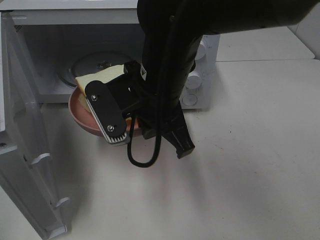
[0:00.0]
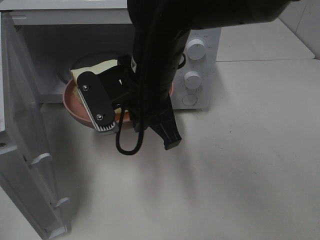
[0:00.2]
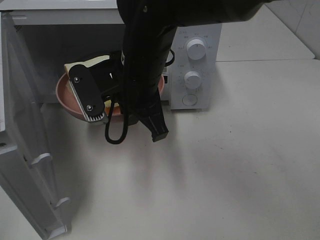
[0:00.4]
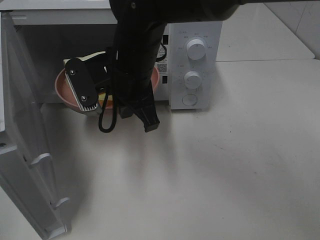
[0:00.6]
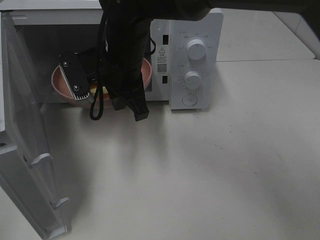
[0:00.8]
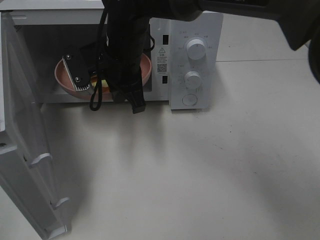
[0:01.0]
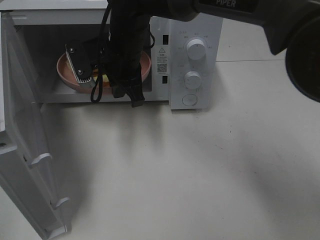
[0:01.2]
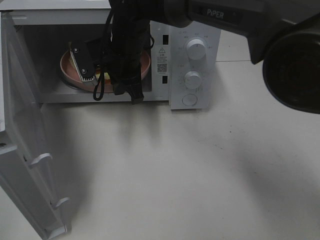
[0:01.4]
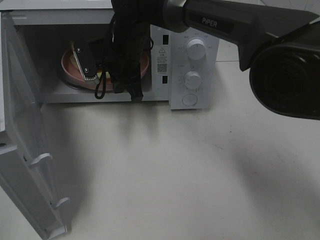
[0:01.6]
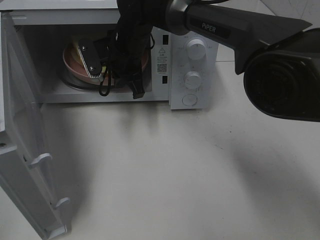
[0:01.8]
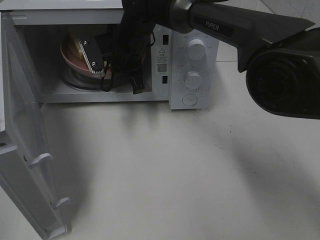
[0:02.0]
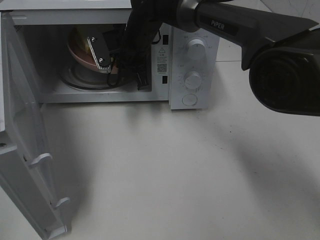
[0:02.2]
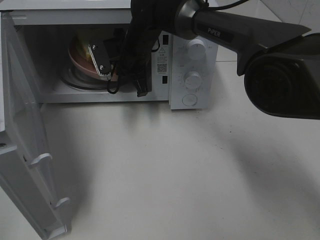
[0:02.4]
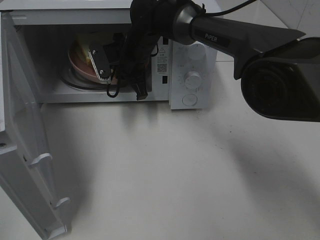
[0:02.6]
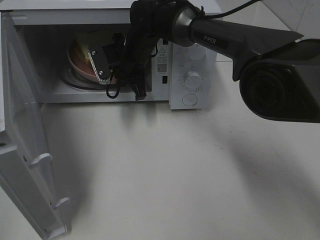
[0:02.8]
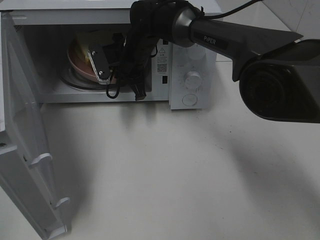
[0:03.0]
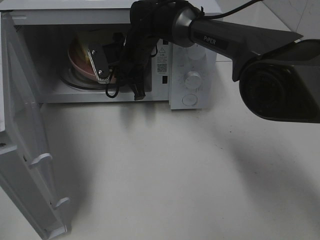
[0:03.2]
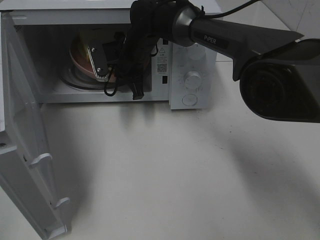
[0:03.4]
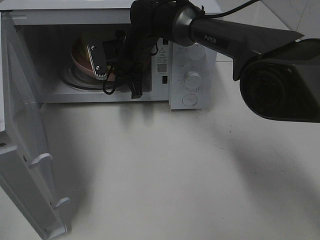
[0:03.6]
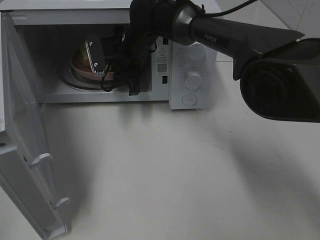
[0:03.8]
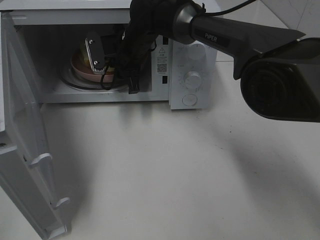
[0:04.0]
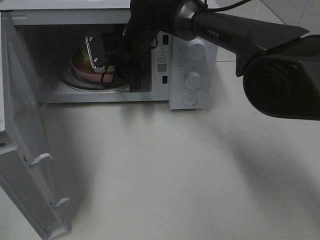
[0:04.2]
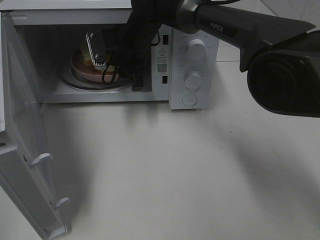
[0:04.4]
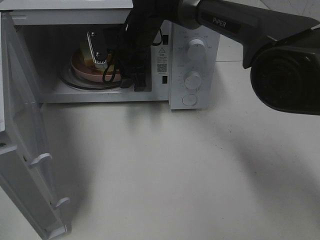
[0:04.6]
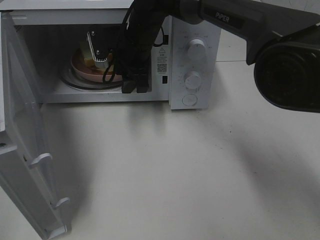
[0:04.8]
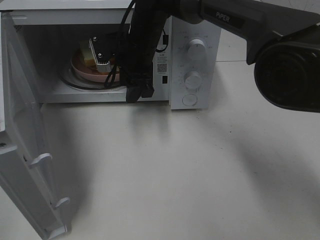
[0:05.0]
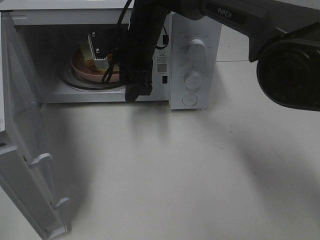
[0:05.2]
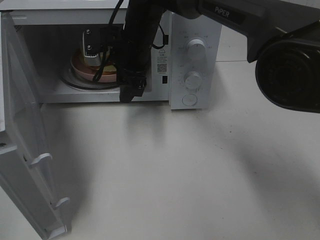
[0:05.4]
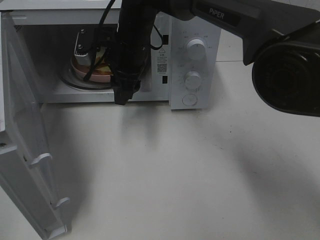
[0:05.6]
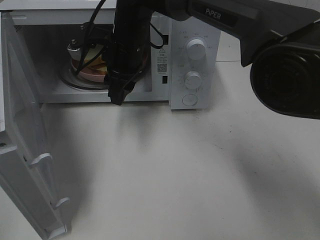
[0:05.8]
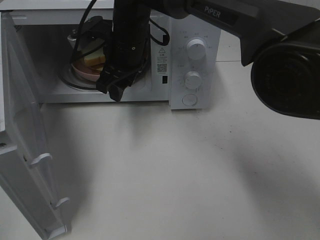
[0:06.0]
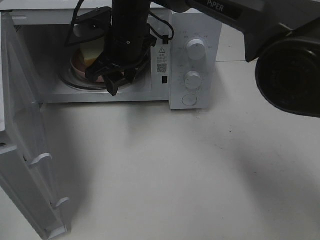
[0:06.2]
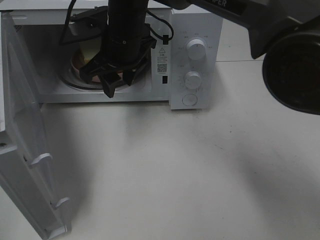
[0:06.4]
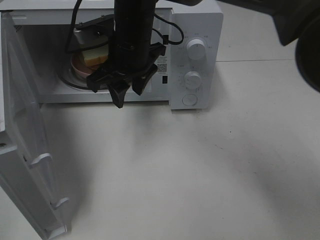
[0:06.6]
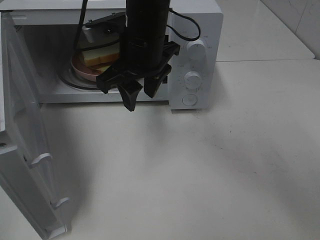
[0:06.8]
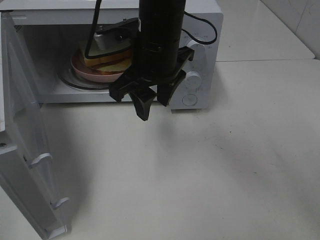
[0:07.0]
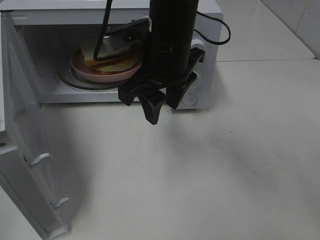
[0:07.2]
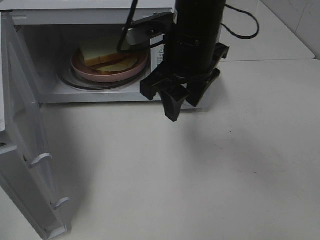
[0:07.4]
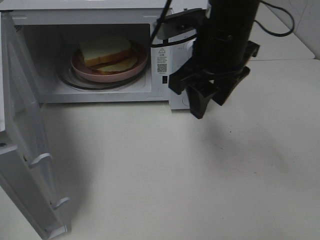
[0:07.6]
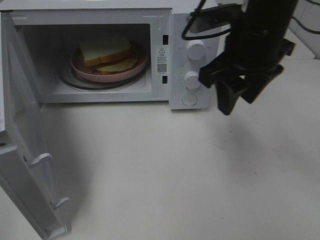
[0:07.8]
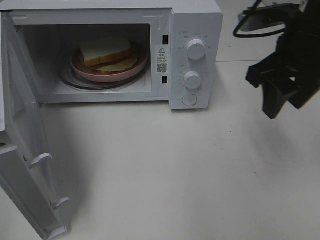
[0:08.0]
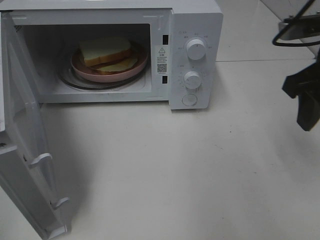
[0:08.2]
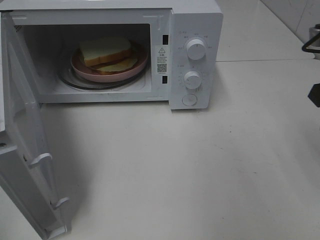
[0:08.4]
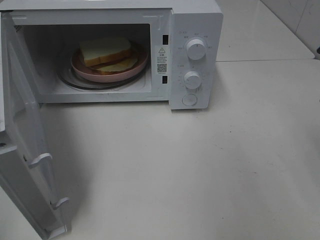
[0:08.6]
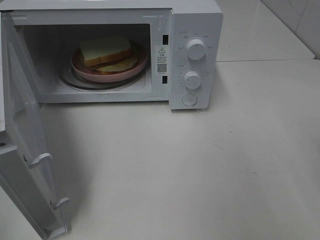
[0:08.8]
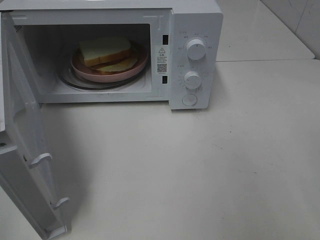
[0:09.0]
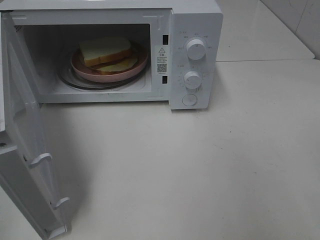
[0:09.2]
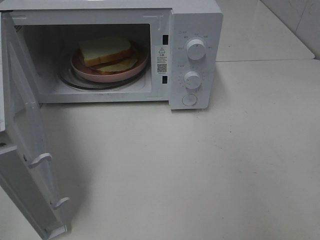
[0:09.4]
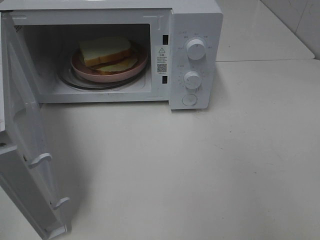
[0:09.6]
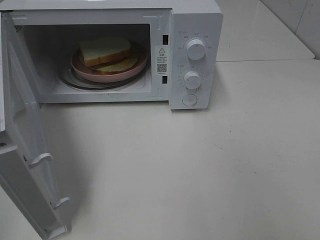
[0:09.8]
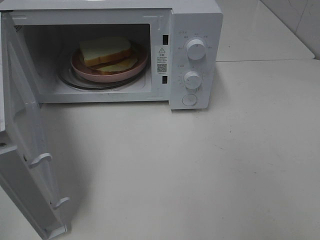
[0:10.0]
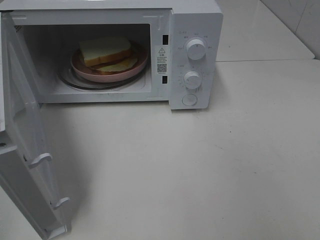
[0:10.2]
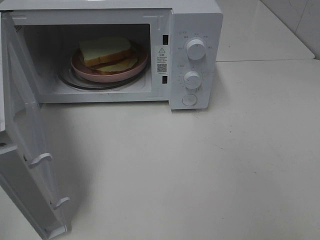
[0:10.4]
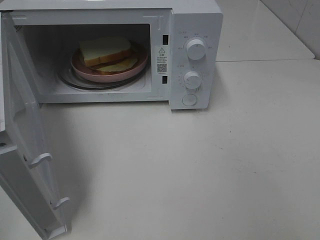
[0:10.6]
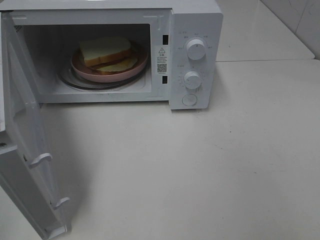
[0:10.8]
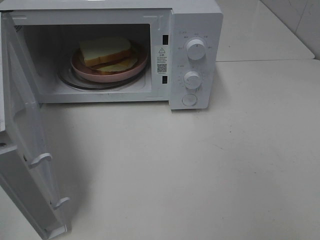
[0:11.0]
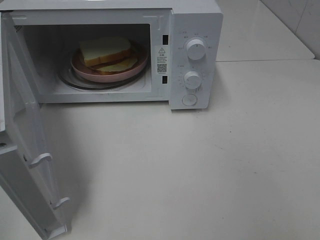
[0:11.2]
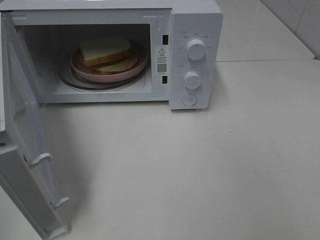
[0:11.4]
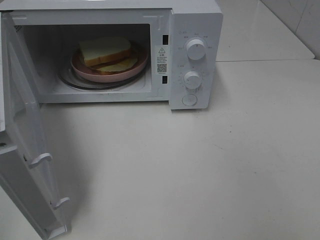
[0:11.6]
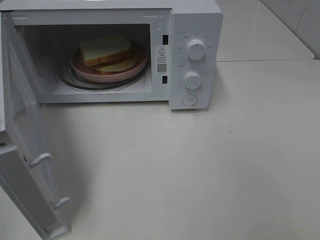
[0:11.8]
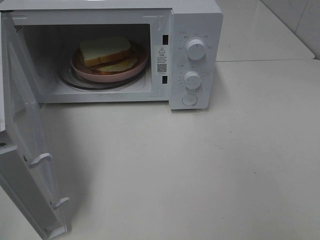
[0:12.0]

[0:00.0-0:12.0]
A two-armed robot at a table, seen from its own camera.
Task of the whole recording: Heat Sandwich.
Step, 0:00.0 to 0:04.6: Right hand: place the plate in the microwave.
0:00.0 to 0:01.6: The right gripper goes some 15 cm forward.
0:01.6 to 0:03.0: The right gripper ends up some 5 cm from where it was.
0:03.0 to 0:04.4: The right gripper opens its fingers.
0:04.4 to 0:06.0: The right gripper heads backward, covering about 5 cm.
0:06.0 to 0:07.6: The right gripper shifts about 20 cm to the right, backward and upward.
0:07.6 to 0:09.0: The right gripper moves to the right and backward, approximately 25 cm.

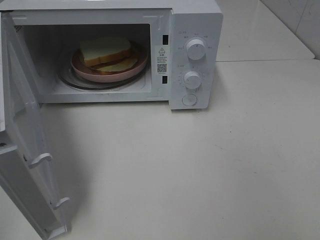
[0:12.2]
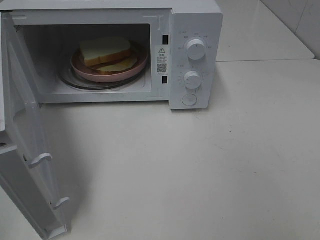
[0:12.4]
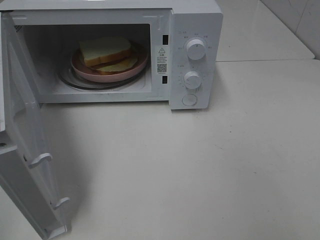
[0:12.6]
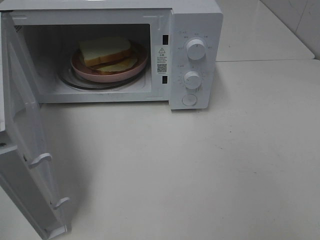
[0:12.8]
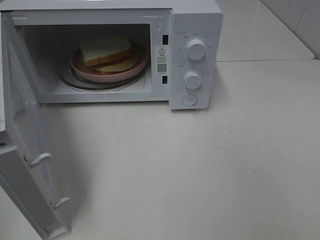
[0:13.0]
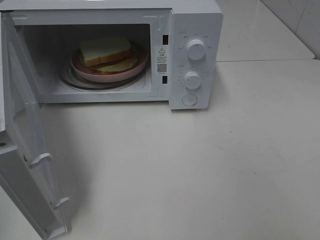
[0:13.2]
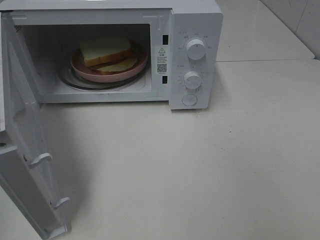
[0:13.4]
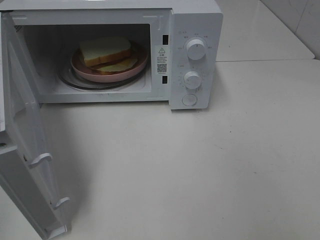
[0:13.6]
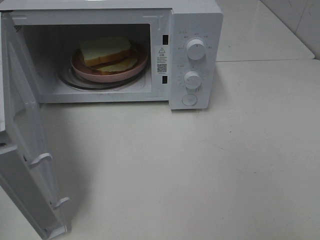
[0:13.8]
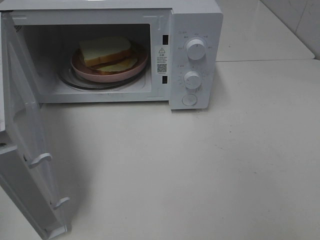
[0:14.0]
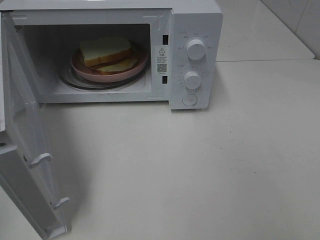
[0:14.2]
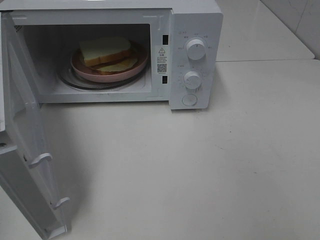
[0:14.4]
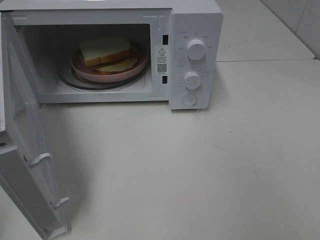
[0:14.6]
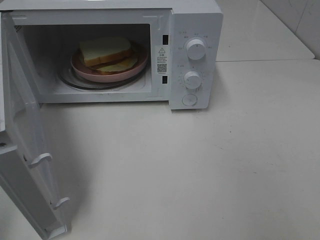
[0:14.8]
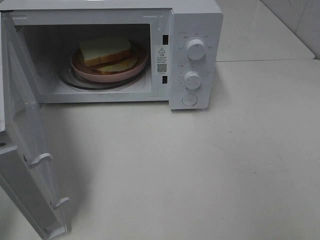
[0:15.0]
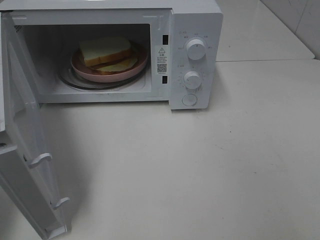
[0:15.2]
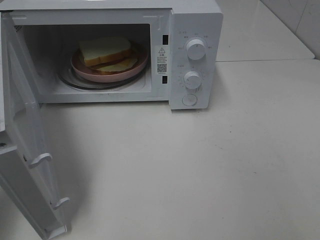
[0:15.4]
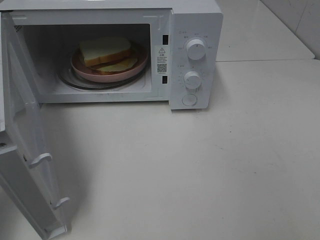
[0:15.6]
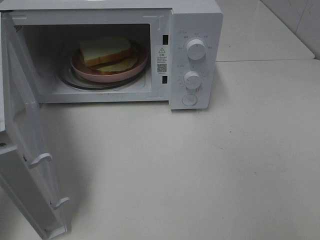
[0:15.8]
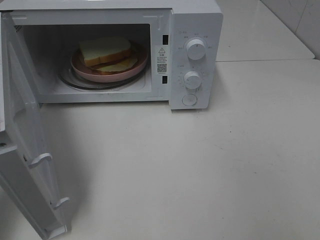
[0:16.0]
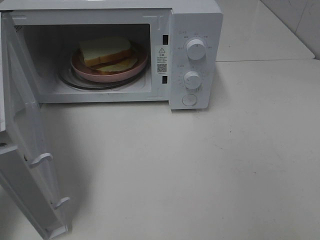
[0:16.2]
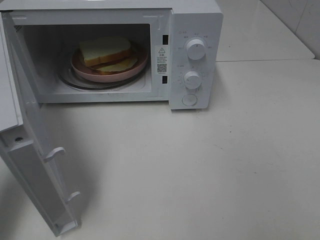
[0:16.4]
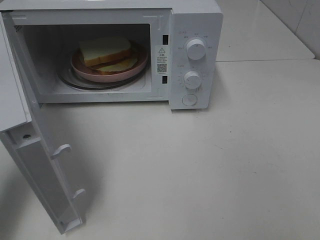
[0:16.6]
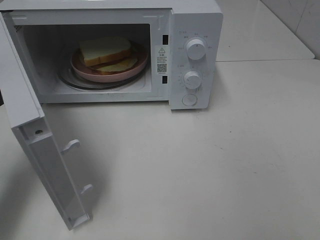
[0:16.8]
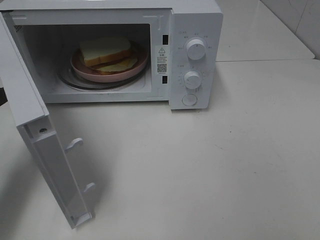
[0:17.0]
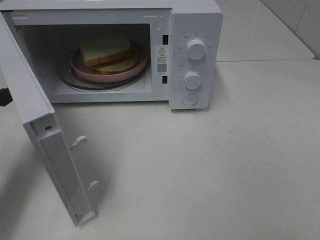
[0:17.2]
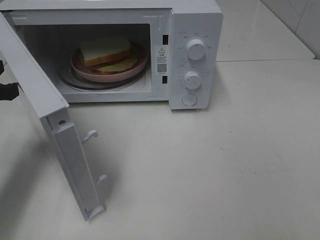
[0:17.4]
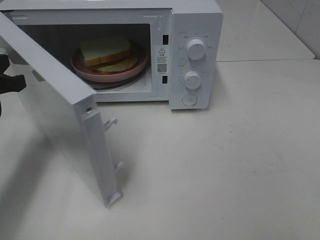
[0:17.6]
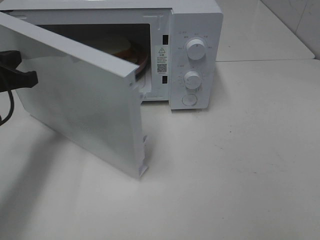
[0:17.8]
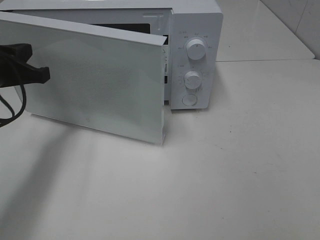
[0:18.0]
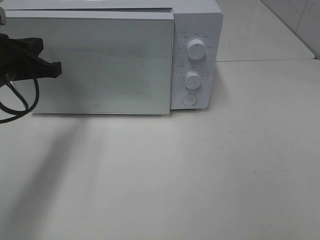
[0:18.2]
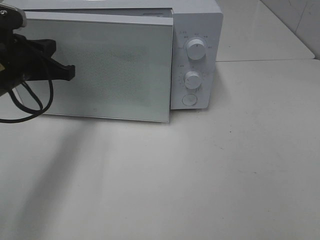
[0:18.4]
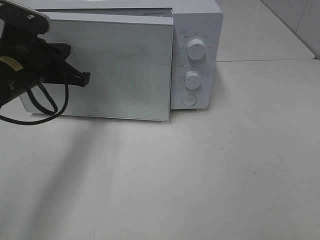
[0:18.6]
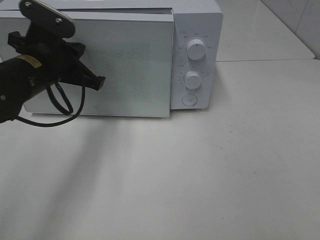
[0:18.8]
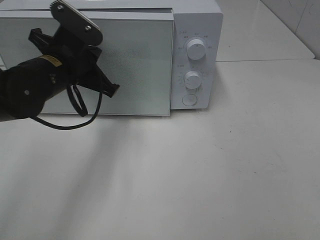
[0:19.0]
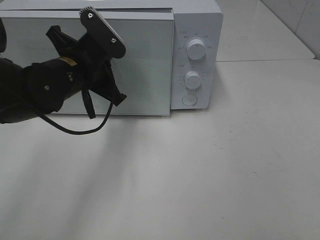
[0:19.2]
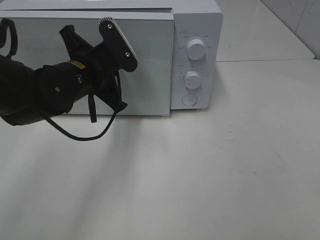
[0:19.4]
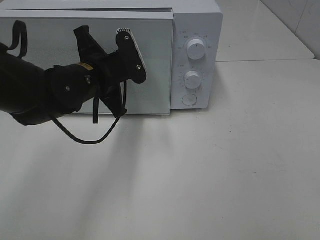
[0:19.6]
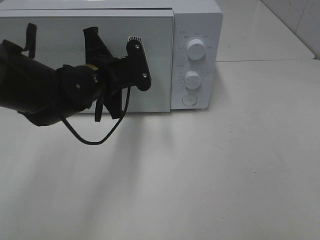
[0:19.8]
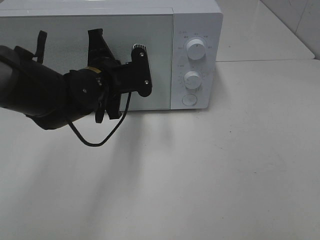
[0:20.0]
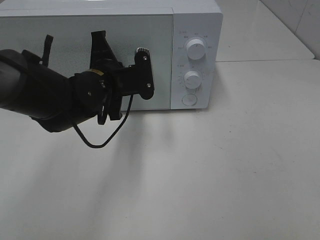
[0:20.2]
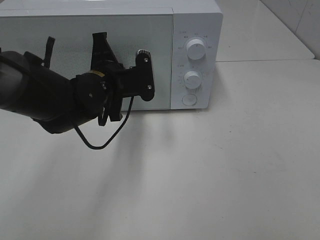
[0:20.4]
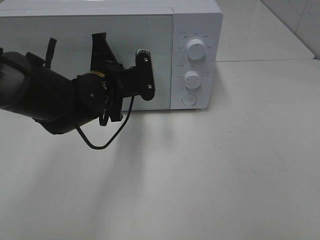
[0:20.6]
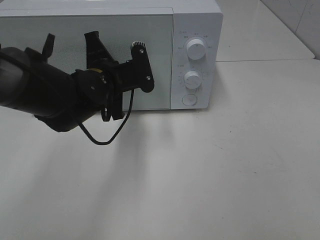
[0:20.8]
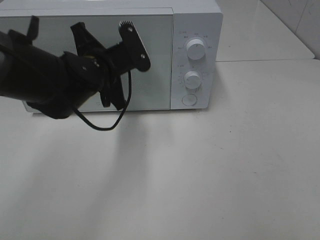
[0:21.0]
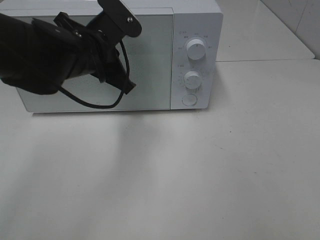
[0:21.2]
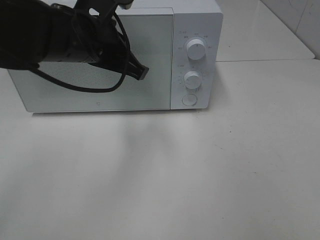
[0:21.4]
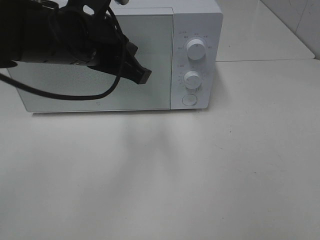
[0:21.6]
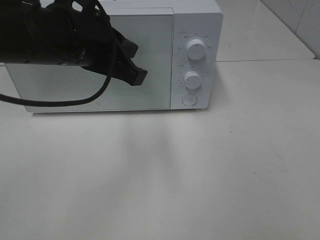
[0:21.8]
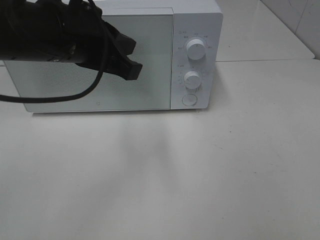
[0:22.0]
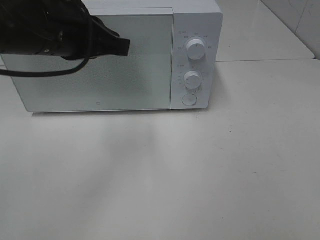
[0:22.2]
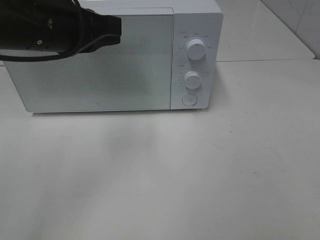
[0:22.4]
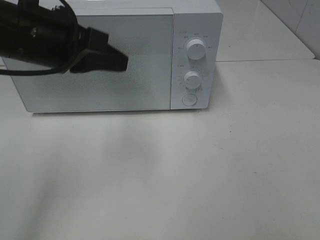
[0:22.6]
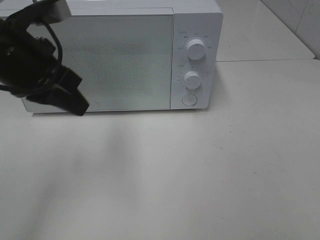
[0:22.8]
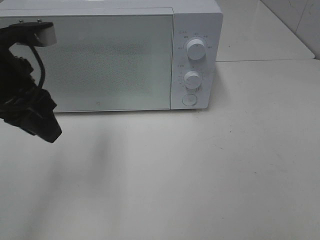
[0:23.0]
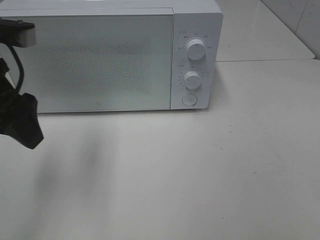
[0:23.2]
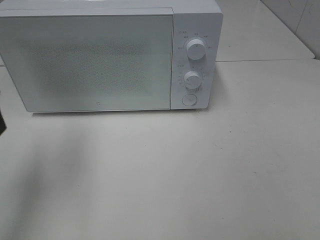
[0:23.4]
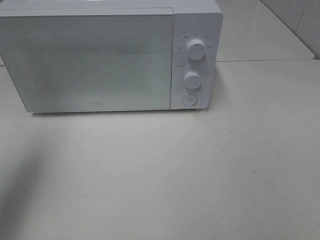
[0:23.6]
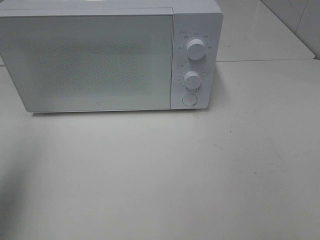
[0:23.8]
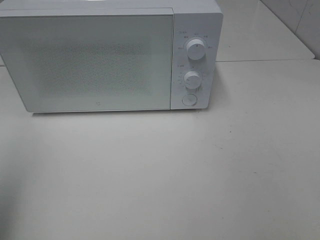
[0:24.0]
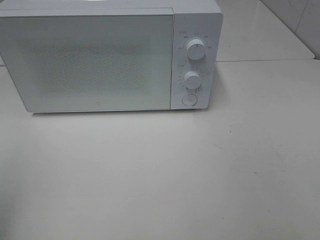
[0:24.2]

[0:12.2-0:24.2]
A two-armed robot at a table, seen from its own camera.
Task of the whole recording: Heat Sandwich.
Step, 0:12.2 to 0:23.0: Left hand: close the microwave door.
0:12.2 to 0:13.8: Neither gripper changes place.
0:13.8 to 0:15.2: The left gripper goes approximately 15 cm forward, and closes.
0:15.2 to 0:16.6: The left gripper shifts about 10 cm forward and downward.
0:16.6 to 0:18.2: The left gripper is displaced forward and to the right by roughly 10 cm.
0:18.2 to 0:19.8: The left gripper goes some 15 cm to the right.
0:19.8 to 0:21.2: The left gripper is displaced upward by roughly 5 cm.
0:21.2 to 0:22.6: The left gripper goes about 10 cm upward, to the left and backward.
0:22.6 to 0:24.2: The left gripper moves backward and to the left, some 25 cm, and opens its fingers.
